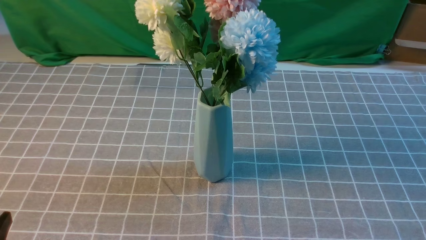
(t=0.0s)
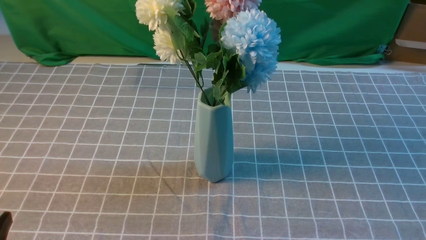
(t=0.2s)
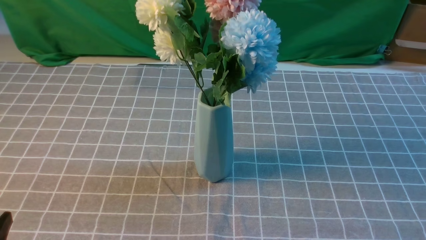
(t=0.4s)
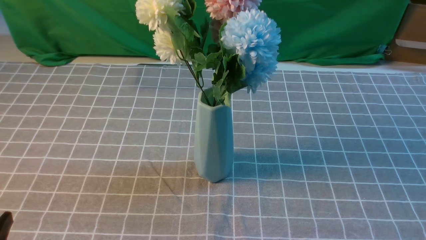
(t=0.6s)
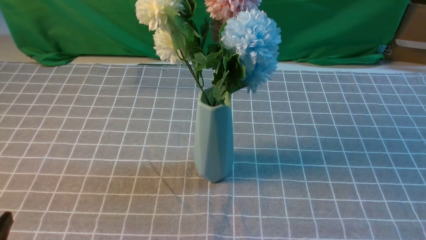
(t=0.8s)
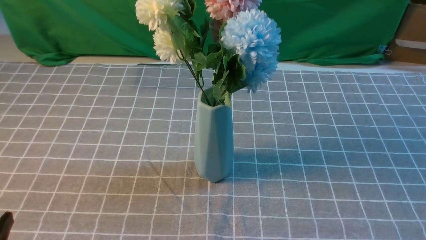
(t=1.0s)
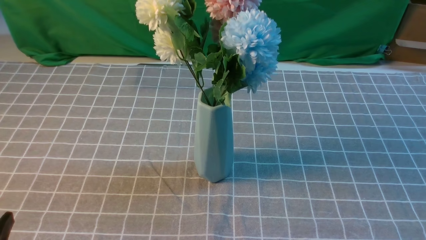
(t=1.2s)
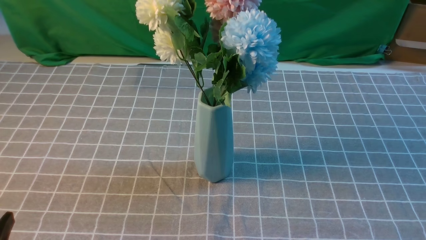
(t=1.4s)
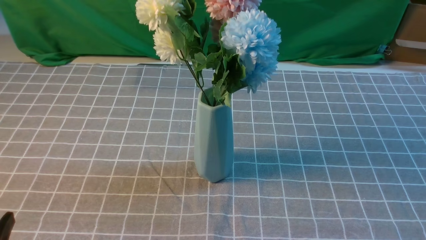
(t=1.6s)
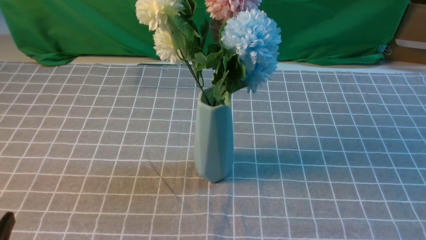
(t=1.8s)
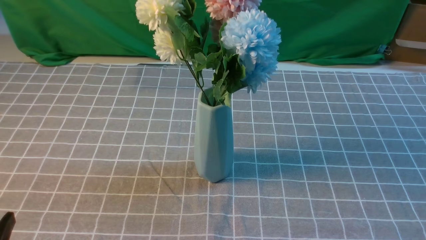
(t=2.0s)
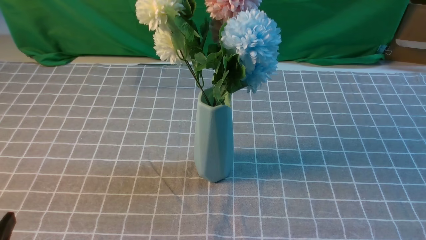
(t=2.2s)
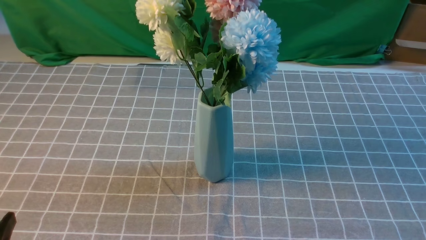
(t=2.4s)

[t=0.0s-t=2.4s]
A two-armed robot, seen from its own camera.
Task of the whole recording: insert the flowers into the vase on the table with the grey tablecloth.
t=1.2s to t=2.4s: Both grippers stay put.
